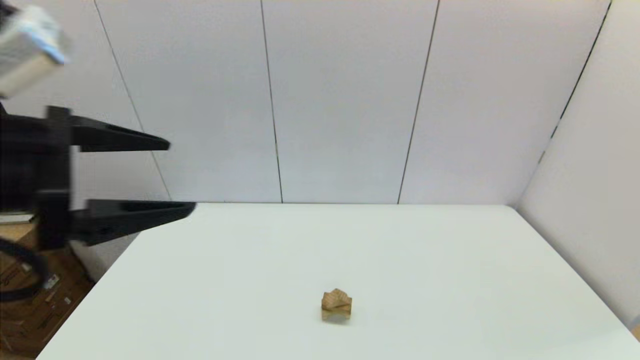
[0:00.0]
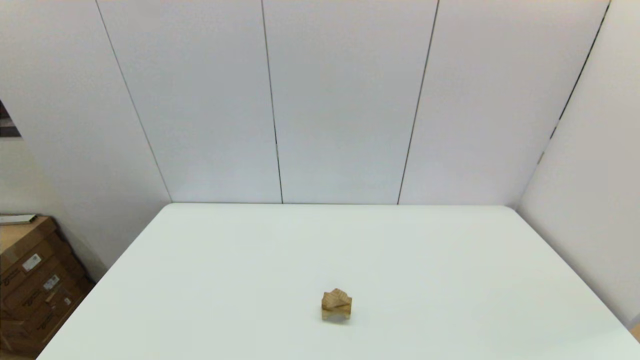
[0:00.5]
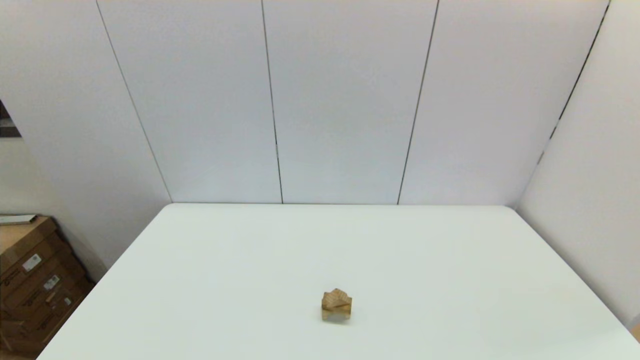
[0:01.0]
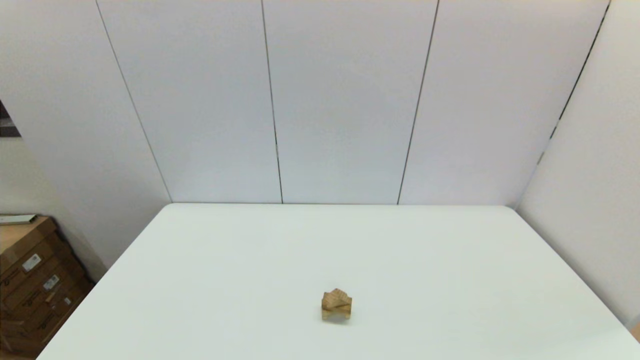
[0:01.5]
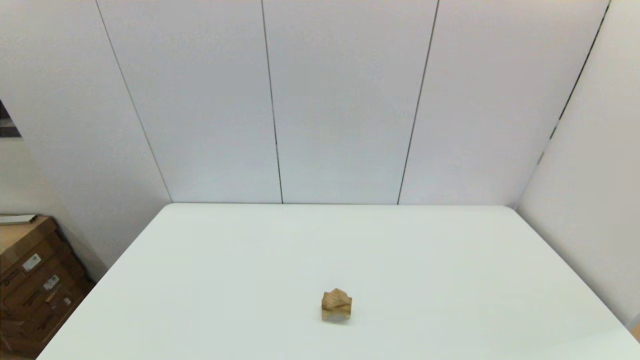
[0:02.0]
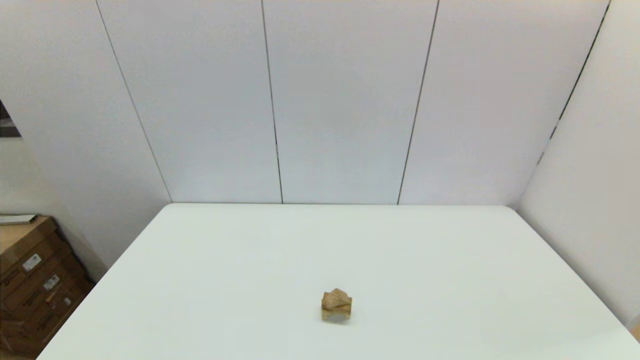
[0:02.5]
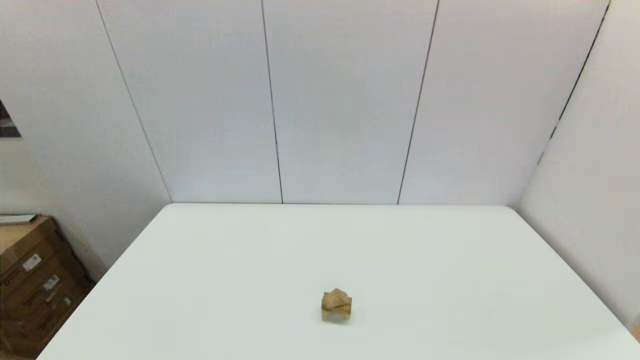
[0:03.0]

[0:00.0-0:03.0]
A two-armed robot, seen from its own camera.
Task of the whole recording: place the arched building blocks in the center of the table, set up the rectangular building blocks, and then set up the triangular building blocks.
0:00.0 to 0:01.5: The left gripper moves downward and backward, some 30 cm.
